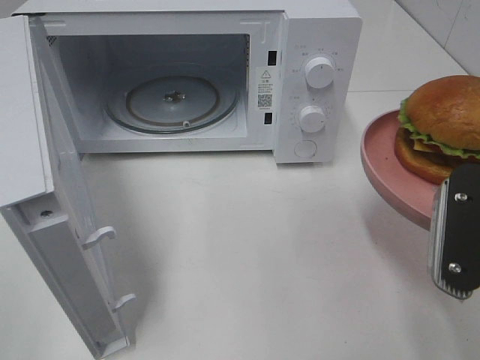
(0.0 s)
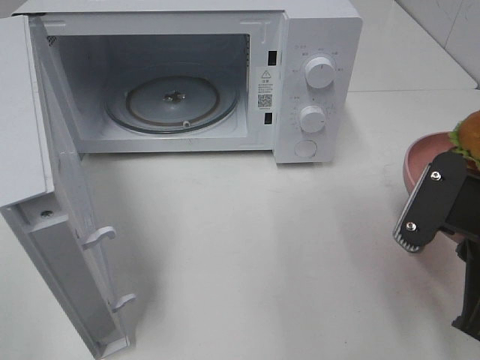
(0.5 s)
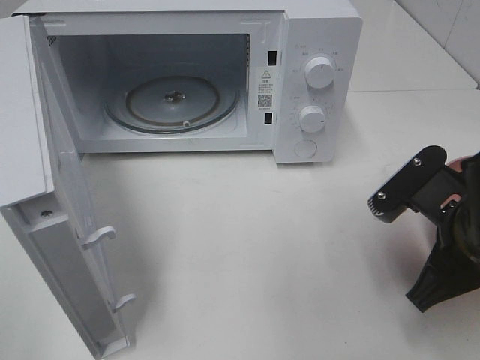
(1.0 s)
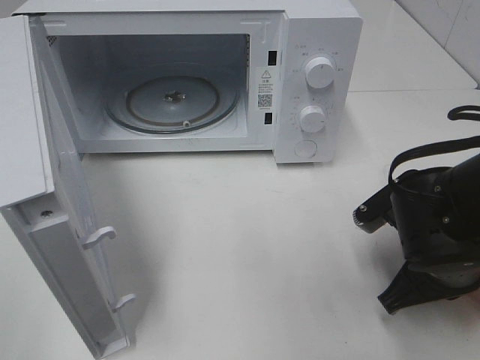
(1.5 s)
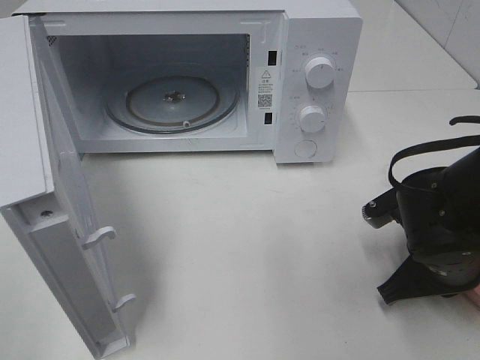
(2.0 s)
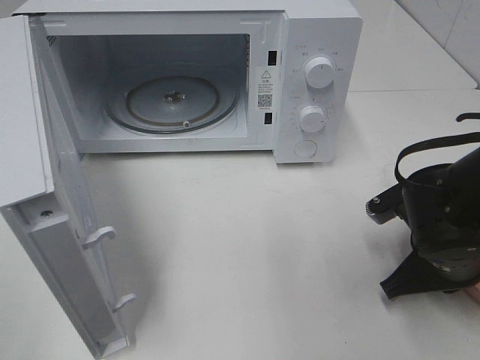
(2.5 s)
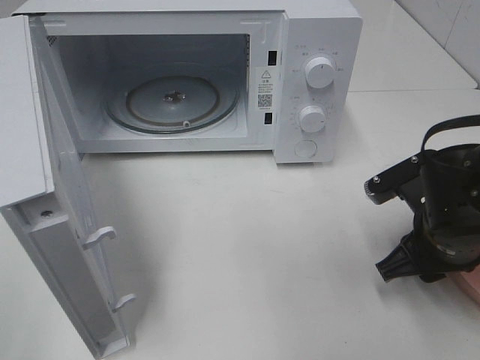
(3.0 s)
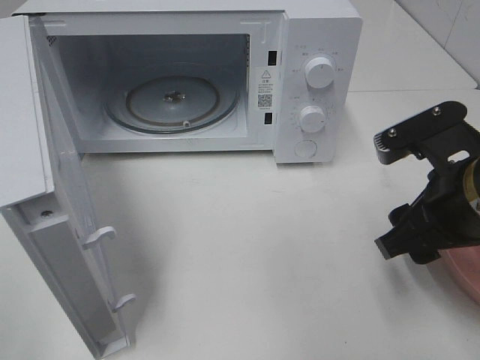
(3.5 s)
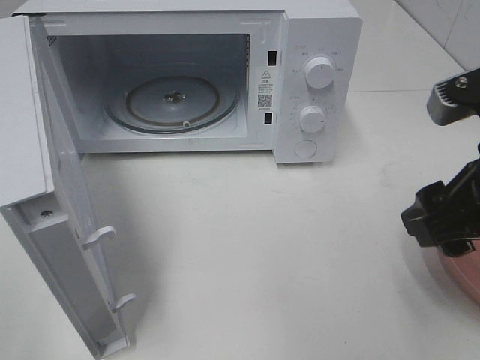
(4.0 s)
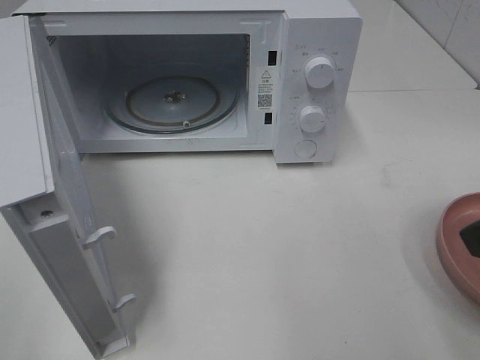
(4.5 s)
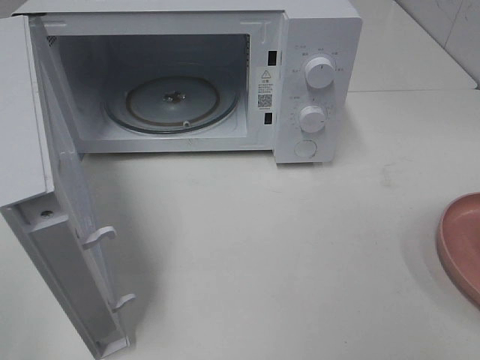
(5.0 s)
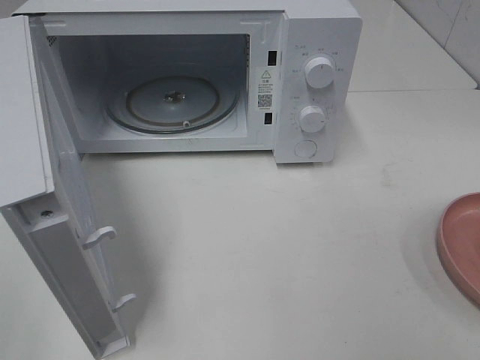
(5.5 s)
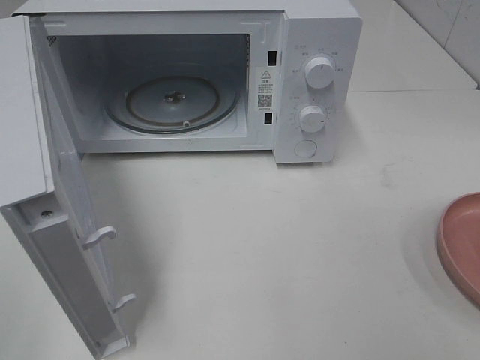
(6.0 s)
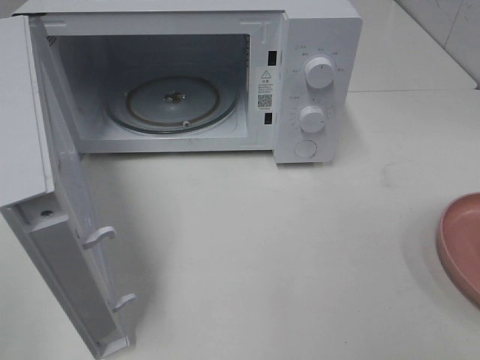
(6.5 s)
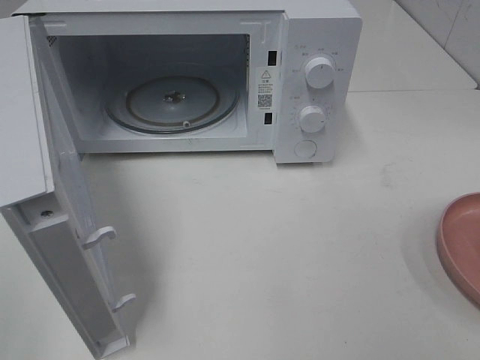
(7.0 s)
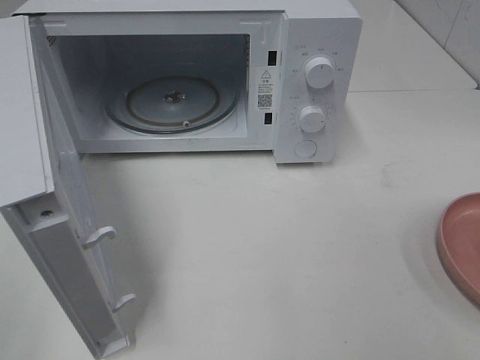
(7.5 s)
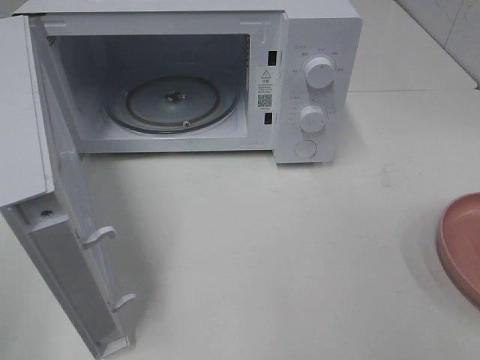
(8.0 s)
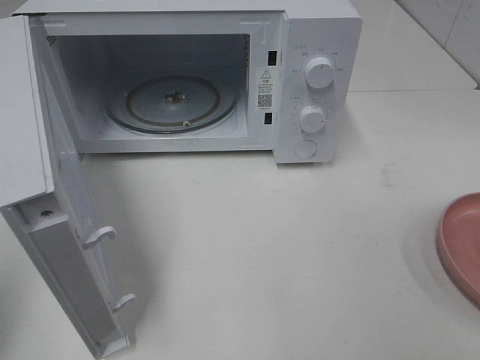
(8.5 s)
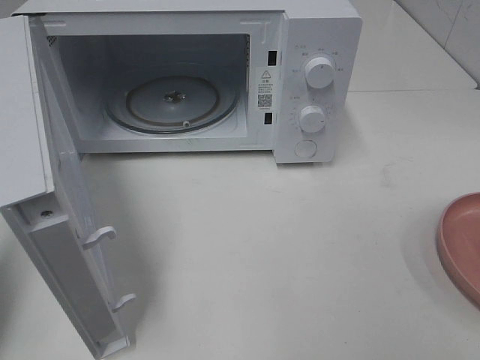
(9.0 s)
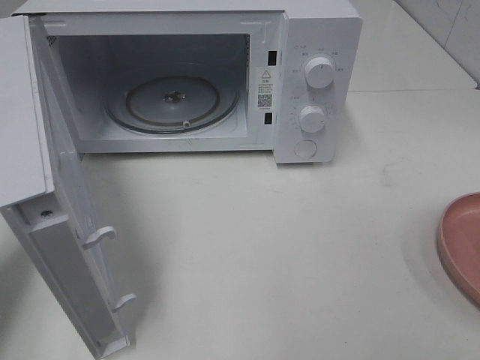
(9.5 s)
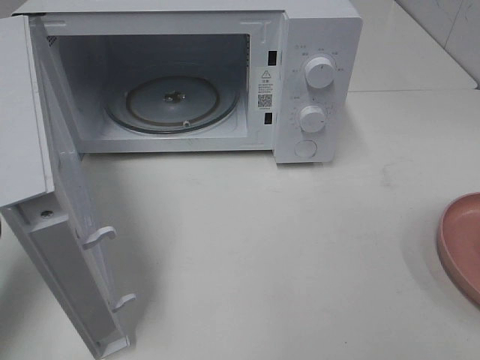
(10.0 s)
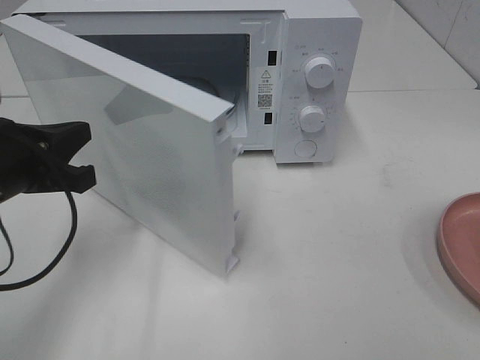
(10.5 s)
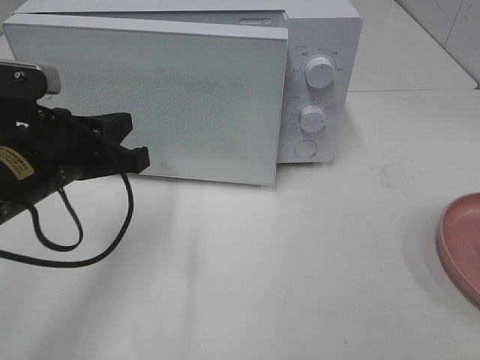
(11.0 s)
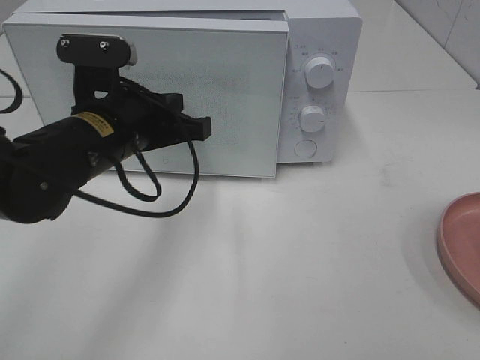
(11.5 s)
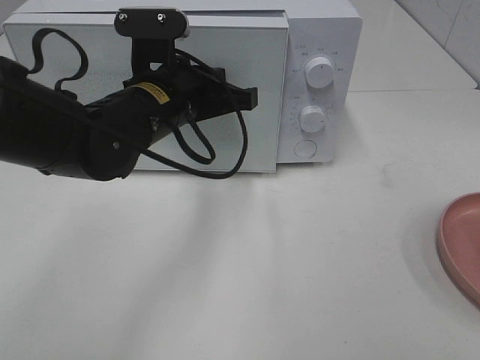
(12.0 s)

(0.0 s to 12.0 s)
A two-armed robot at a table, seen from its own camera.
Task of the whole recording: Heat the burger.
Step, 0.0 s - 2.5 s: Right hand: place the plate on the table.
0.0 s - 2.0 s: The right gripper shifts some 15 cm downward and forward.
2.0 s - 4.0 s: The right gripper goes approximately 15 cm upward, and opens.
4.0 s - 6.0 s: The right gripper is displaced backward and to the right by roughly 20 cm.
8.0 s - 10.0 s: The left gripper goes roughly 20 cm forward and downward, and closes its fingers.
10.0 s - 12.0 s: The left gripper goes approximately 25 cm to the right and forward.

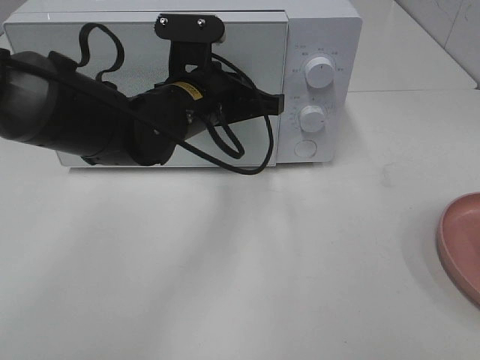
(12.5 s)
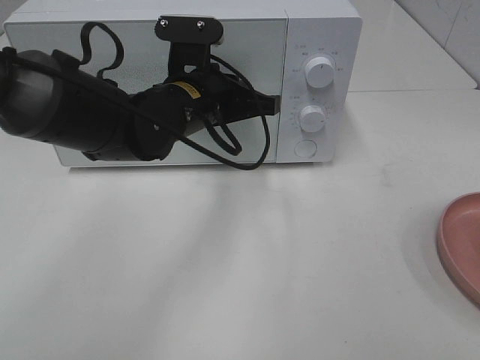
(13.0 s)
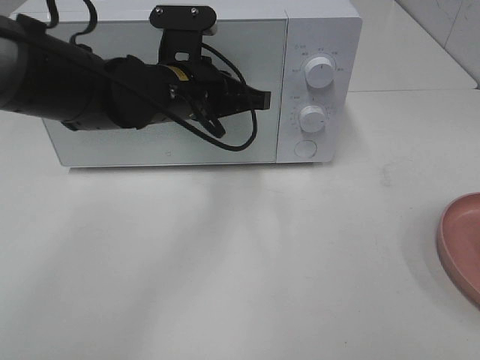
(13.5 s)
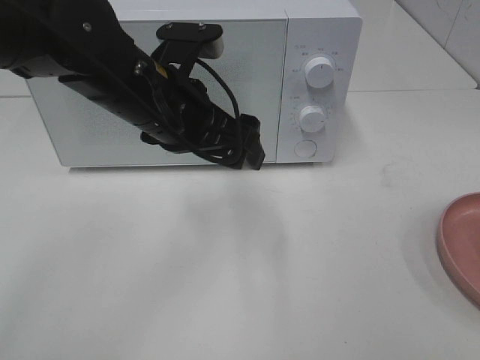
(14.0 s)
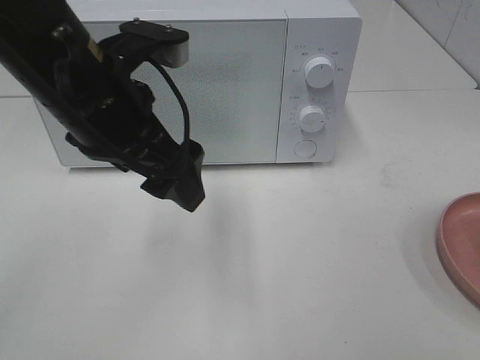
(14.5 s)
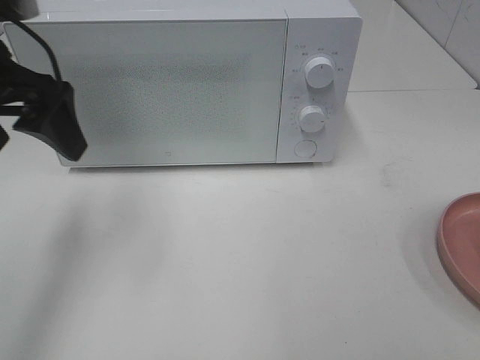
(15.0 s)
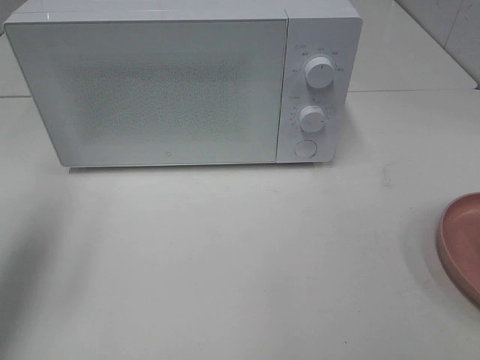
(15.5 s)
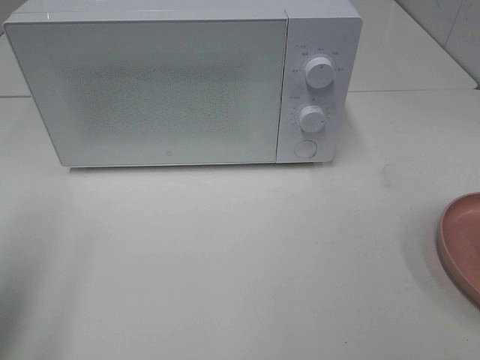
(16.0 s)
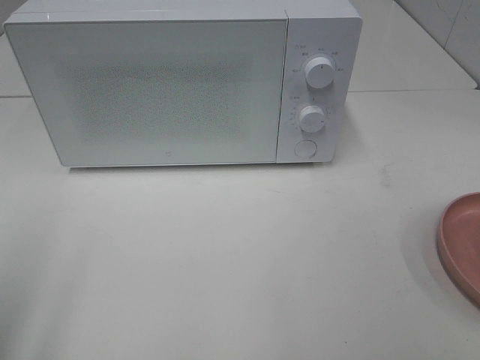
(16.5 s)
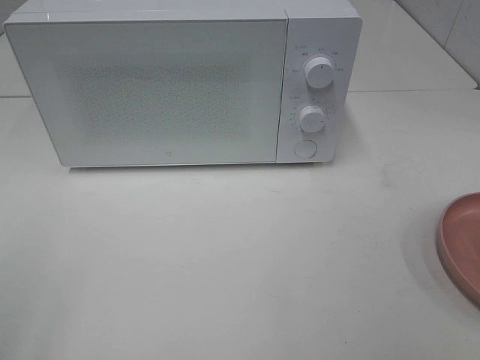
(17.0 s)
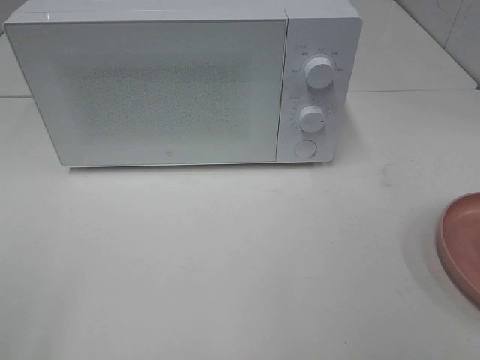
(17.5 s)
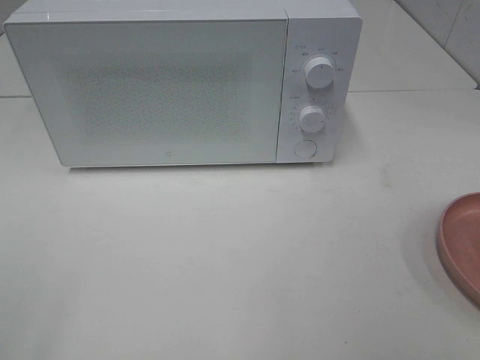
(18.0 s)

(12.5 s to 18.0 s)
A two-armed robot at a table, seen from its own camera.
Task of the whole recording: Heat the burger.
12.5 s - 14.5 s: The left gripper is displaced upward, backward and to the left by about 15 cm, and opens.
14.5 s - 16.0 s: The left gripper travels to the left and backward by roughly 25 cm.
16.0 s - 18.0 s: The left gripper is displaced backward by roughly 15 cm.

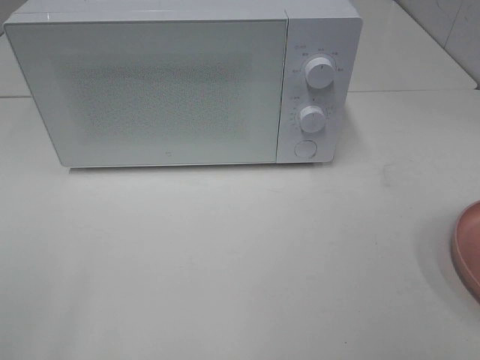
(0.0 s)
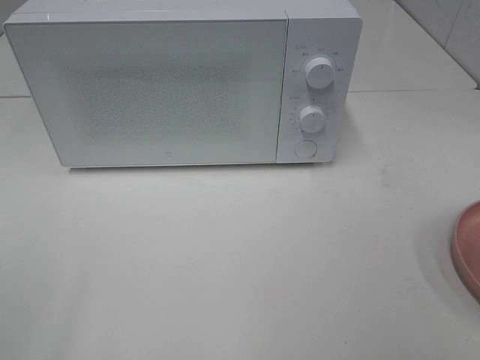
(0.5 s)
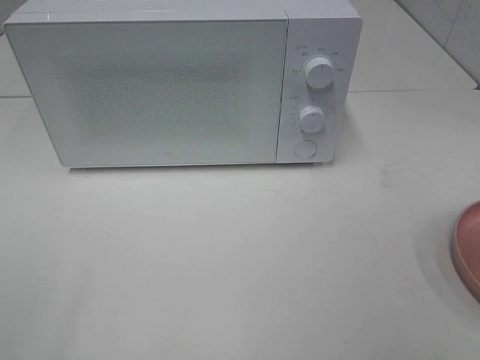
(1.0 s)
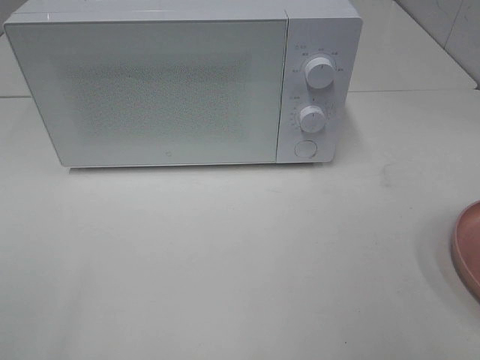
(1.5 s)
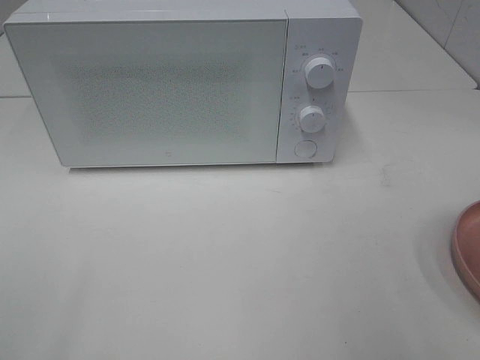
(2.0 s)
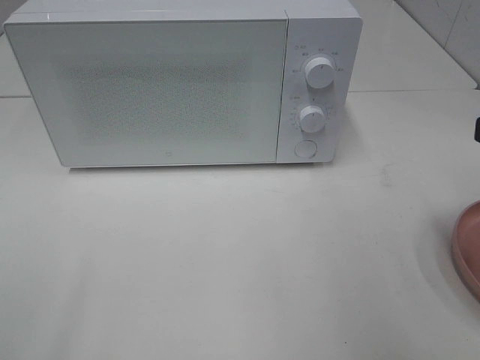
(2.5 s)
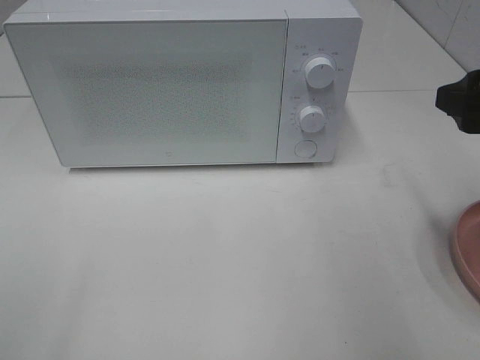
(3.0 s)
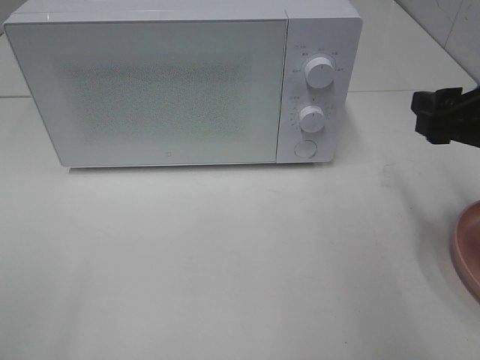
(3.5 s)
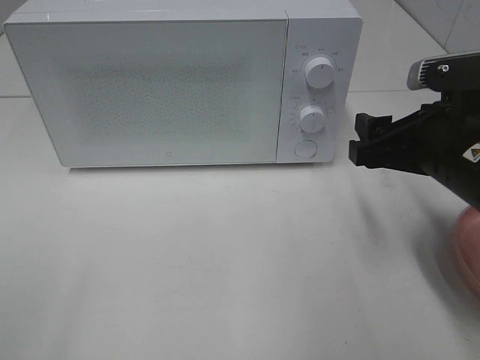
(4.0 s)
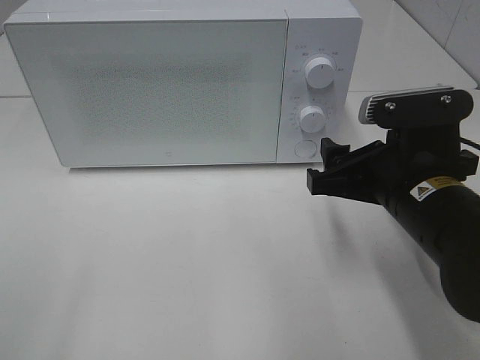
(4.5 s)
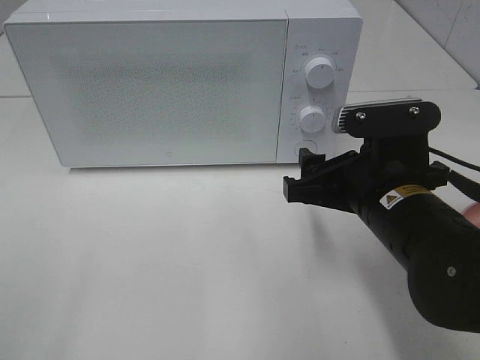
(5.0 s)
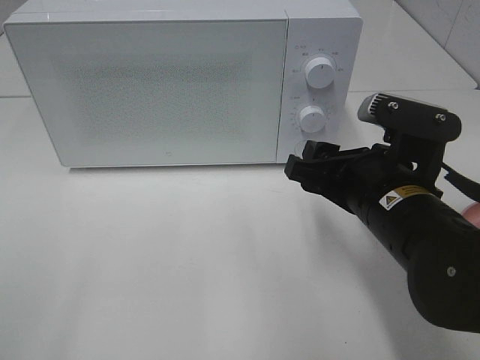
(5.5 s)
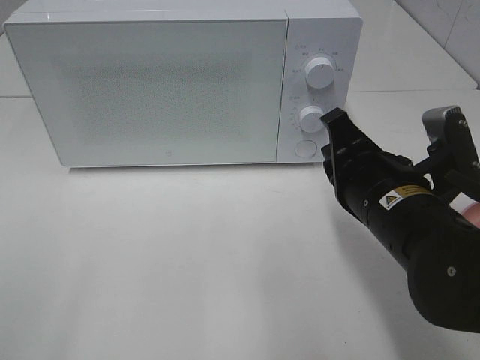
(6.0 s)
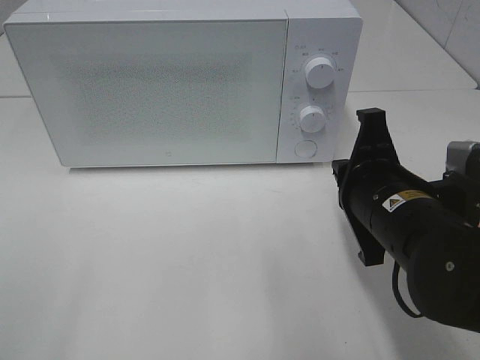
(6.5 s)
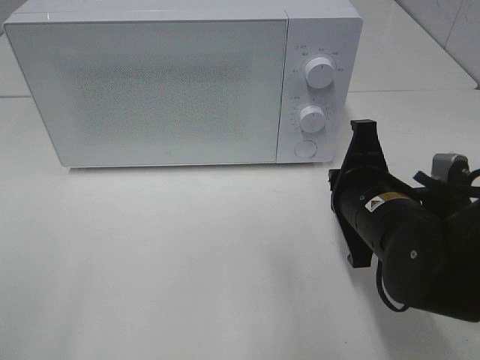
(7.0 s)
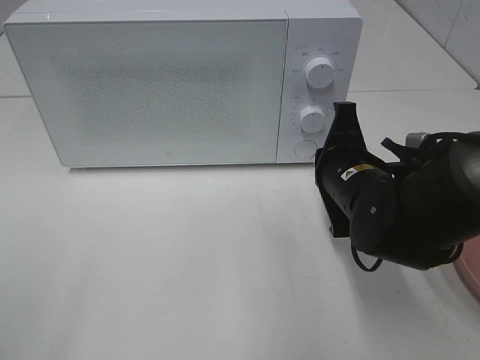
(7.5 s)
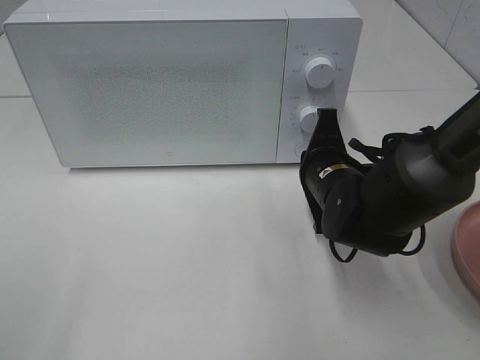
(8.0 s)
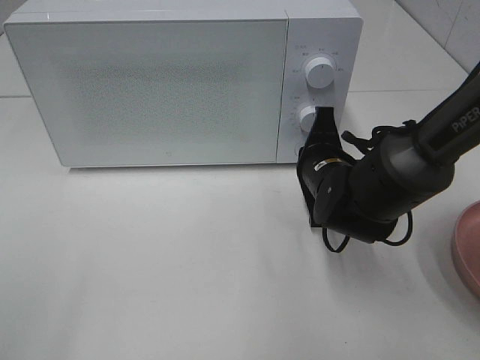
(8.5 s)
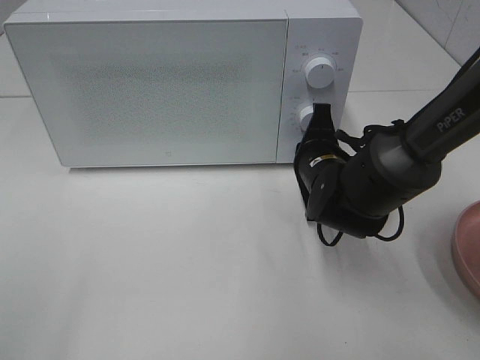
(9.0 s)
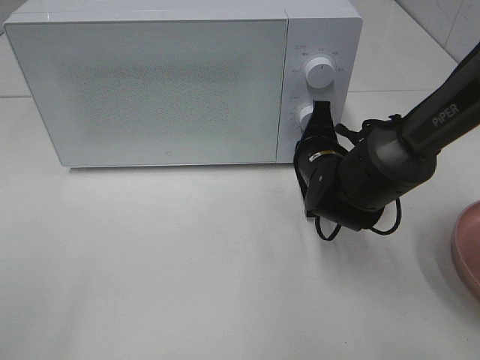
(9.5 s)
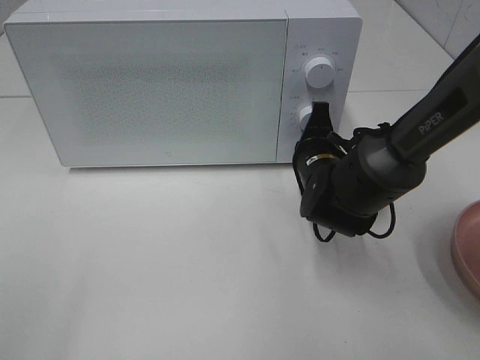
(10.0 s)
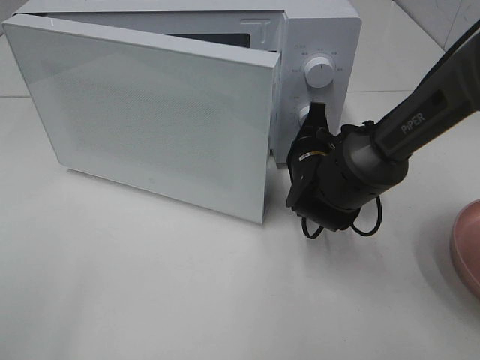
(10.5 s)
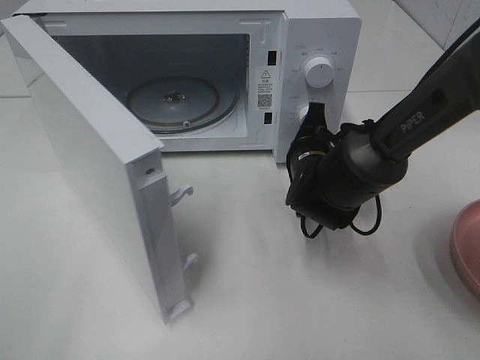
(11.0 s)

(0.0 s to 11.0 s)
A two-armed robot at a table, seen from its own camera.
Task of the whole recording: Heat the burger.
2.0 s - 3.5 s: The right gripper moves forward and downward, approximately 15 cm.
3.5 s - 5.5 s: The right gripper is displaced to the left and downward by about 15 cm.
5.5 s - 7.5 s: The right gripper moves forward, approximately 5 cm, and closes.
7.5 s - 9.0 s: The right gripper heads forward, covering roughly 5 cm.
